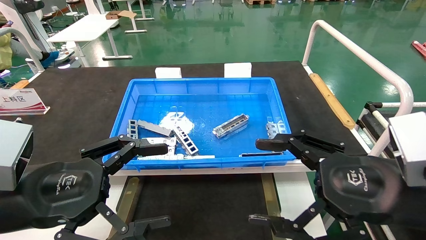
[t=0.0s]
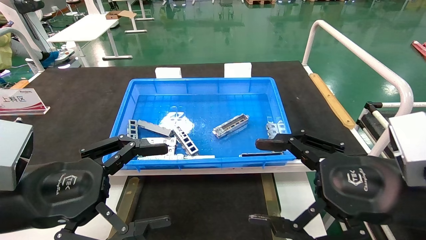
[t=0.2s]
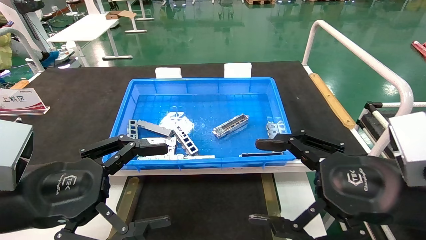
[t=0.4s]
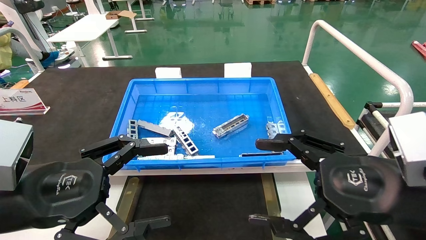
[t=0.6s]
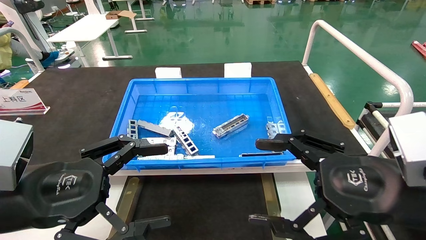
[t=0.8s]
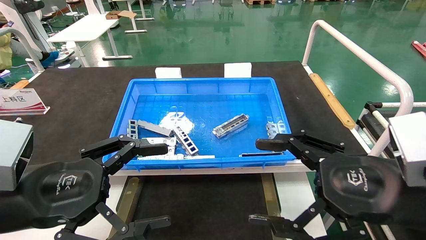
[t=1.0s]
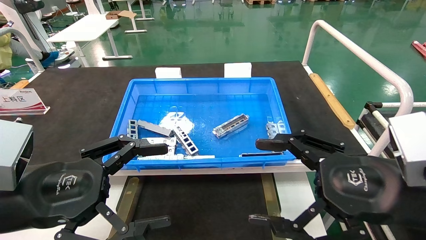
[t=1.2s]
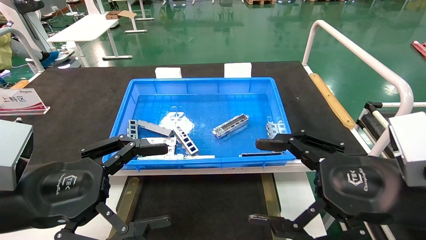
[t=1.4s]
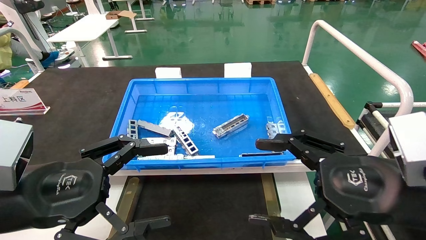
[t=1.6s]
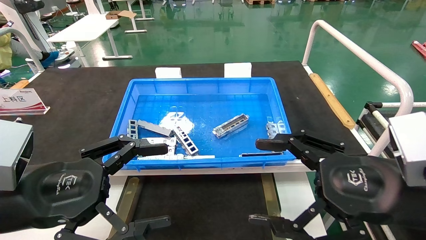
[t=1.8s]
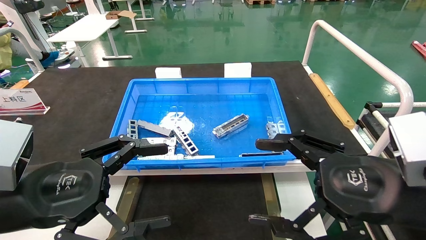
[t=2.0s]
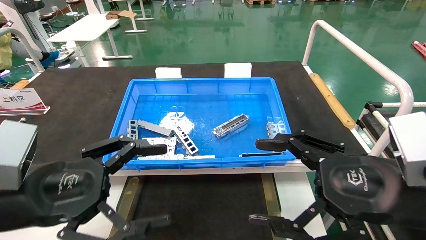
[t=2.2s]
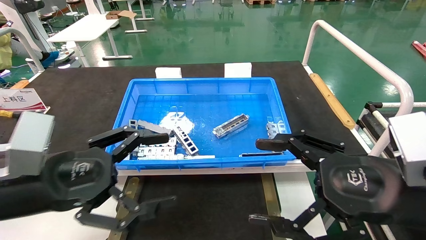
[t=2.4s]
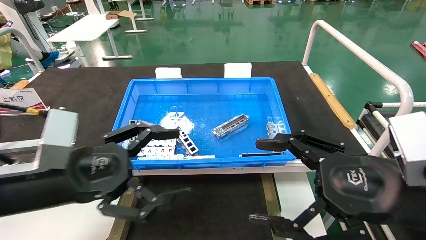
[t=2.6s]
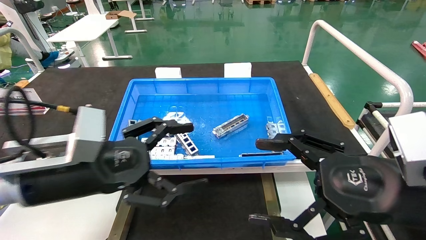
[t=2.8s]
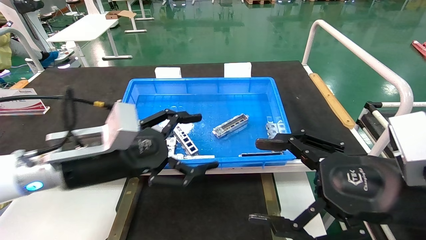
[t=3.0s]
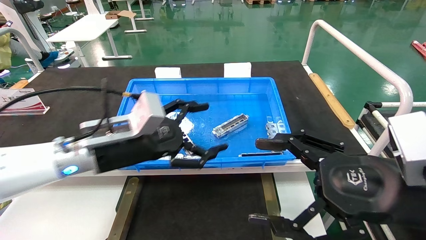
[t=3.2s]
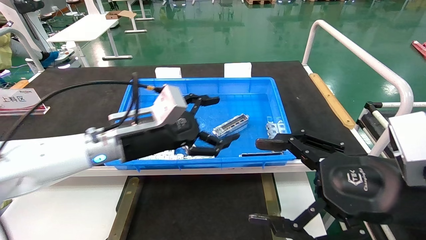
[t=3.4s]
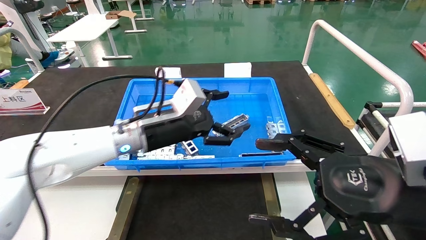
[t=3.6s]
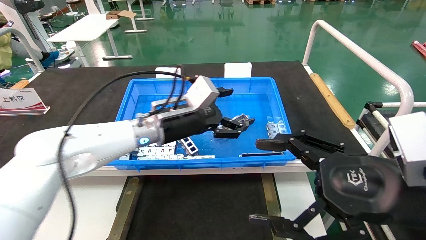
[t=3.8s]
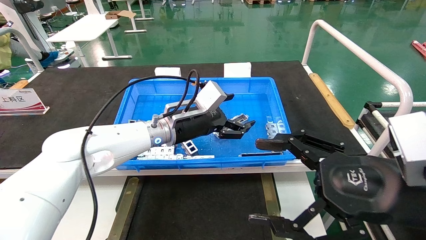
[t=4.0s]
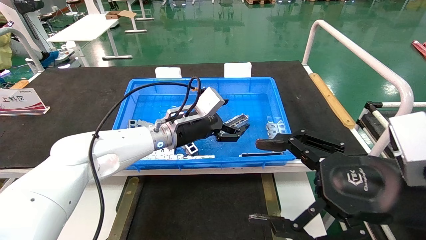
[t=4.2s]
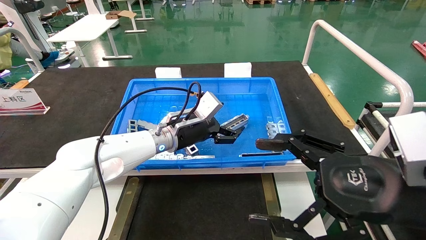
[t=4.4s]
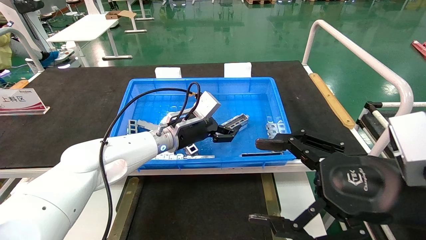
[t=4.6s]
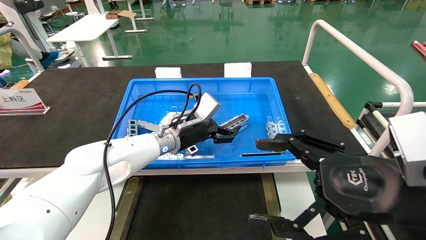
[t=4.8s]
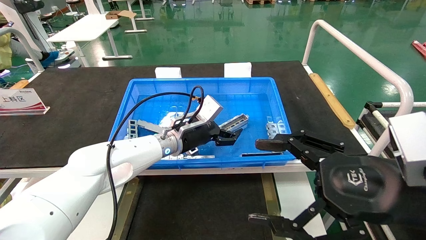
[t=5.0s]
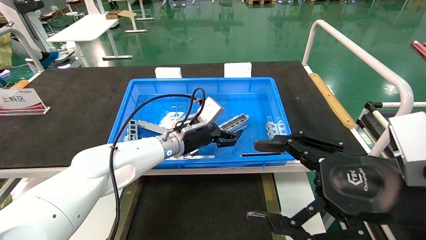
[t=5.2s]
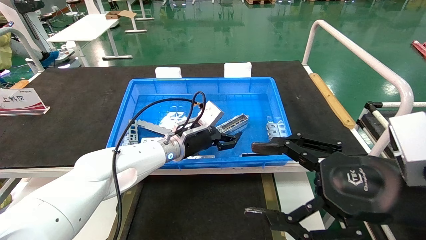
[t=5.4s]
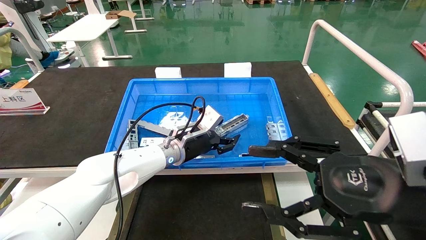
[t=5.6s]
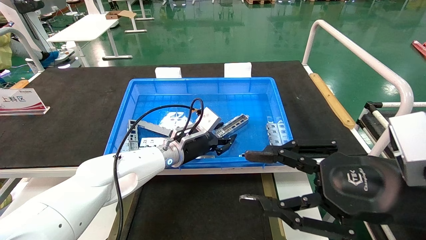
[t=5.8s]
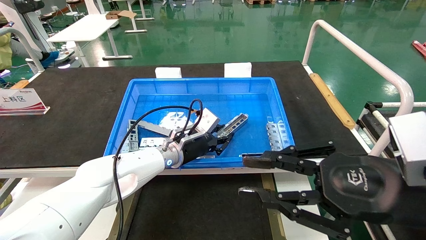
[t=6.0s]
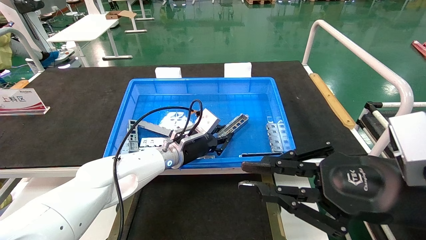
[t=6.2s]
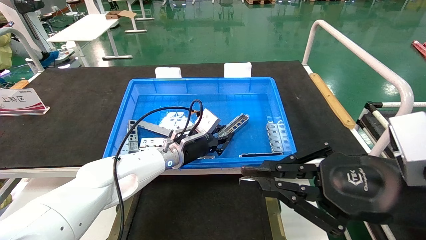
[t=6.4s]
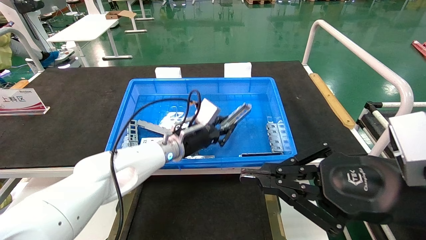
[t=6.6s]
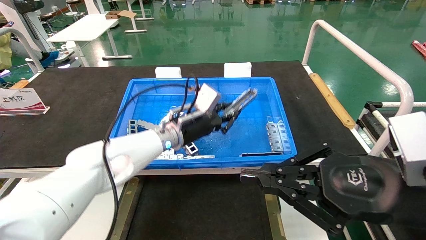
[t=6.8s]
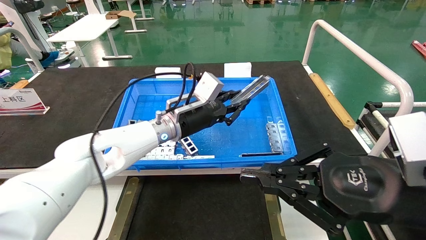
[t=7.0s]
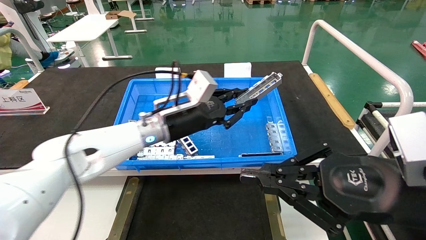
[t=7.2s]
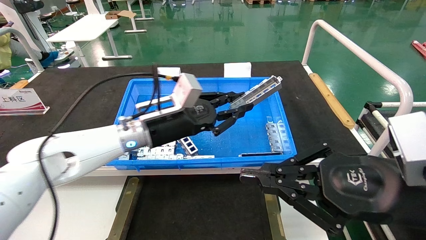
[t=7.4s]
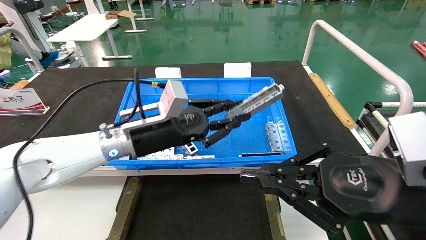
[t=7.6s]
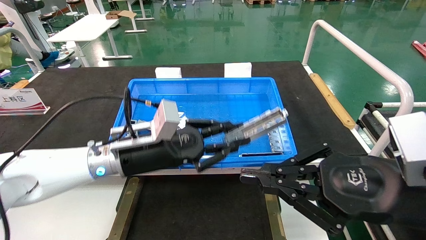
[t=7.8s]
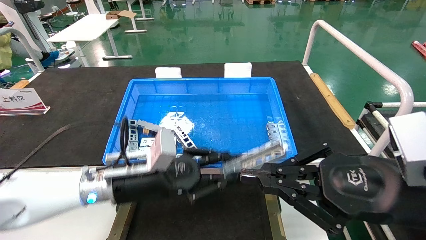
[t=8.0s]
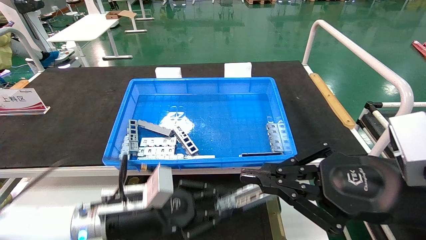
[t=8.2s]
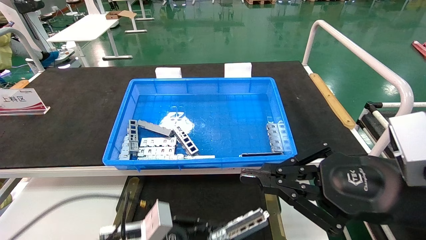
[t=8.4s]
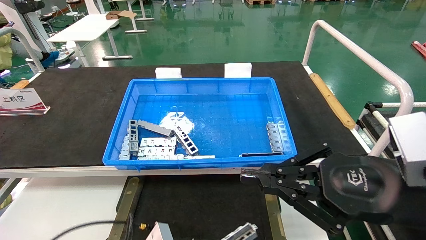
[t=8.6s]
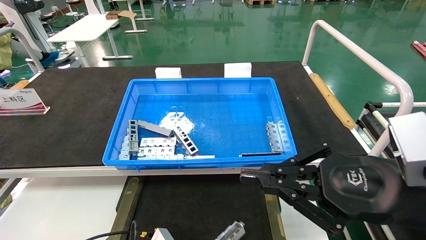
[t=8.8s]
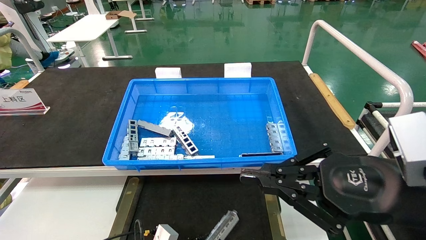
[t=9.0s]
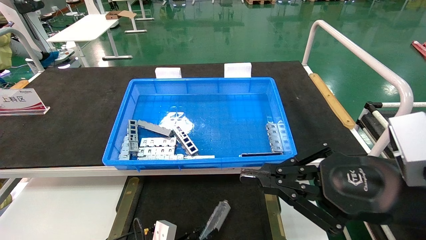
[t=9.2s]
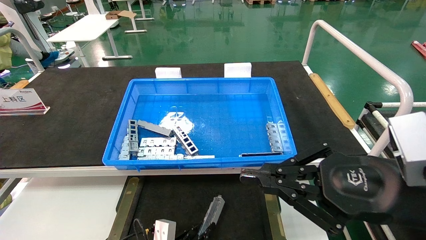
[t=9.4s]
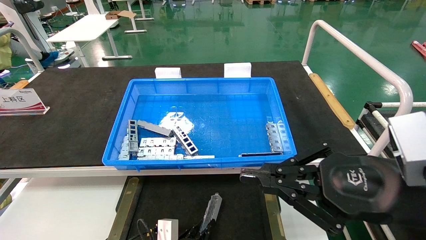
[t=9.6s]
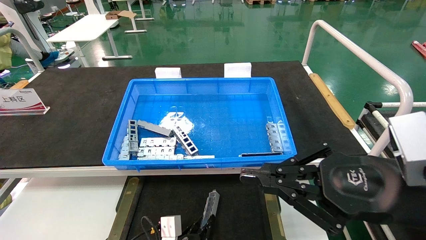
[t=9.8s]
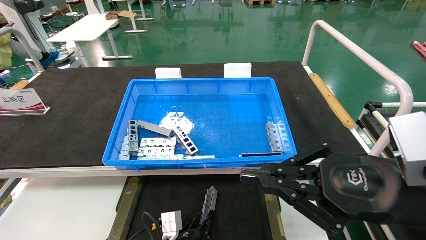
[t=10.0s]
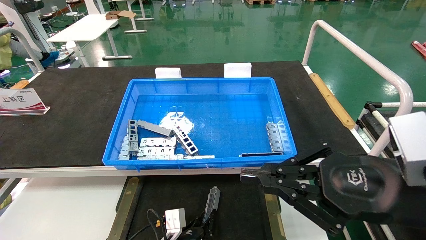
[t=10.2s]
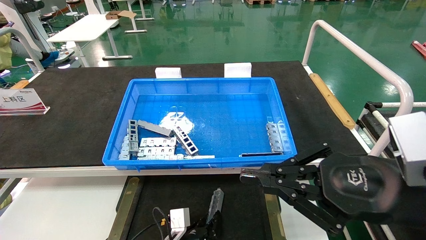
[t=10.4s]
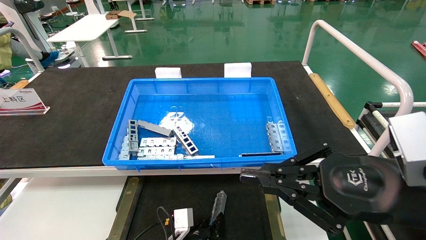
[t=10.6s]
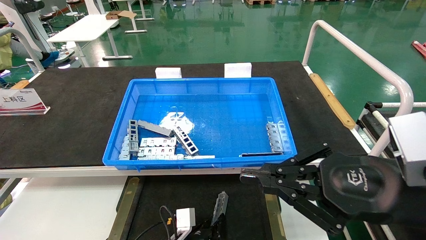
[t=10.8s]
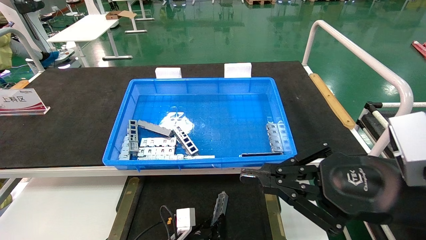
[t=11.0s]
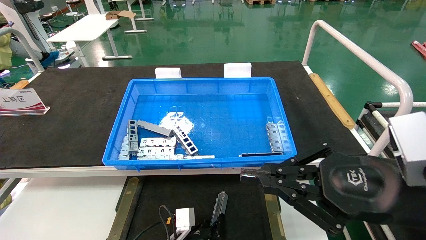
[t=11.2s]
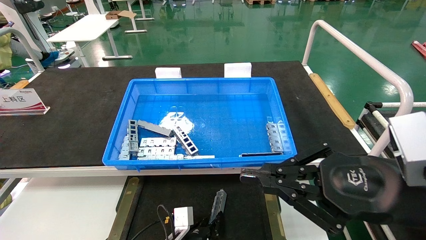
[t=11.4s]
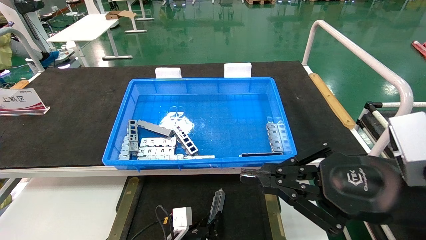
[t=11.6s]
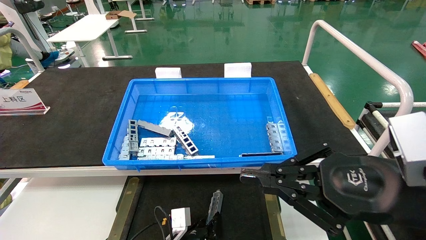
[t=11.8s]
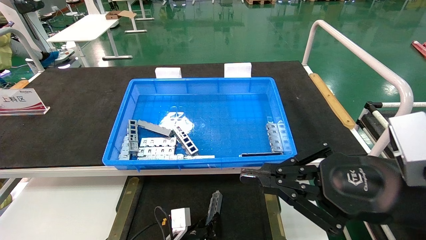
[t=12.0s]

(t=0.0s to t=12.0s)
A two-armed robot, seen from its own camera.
Task of the whole recording: Grasp the part with one hand and place it on the black container.
Step, t=2.4s - t=6.2s: Pick up the front USB bracket from the feeding area.
t=0.0s - t=1.6s: Both grippers stay about where they are.
t=1.6s - t=3.0s: The left gripper shifts some 10 cm forward and to the right.
t=3.0s - t=4.4s: The left gripper is displaced forward and to the right by about 20 cm.
t=4.4s - t=6.0s: The right gripper closes. Meanwhile the left gripper is displaced downward by about 5 cm, and closes its fingers.
t=6.0s - t=7.6s: The left gripper heads backward, upward and to the left, covering roughly 15 cm. Meanwhile the right gripper closes its fingers.
t=7.6s - t=9.0s: The left gripper shifts approximately 30 cm downward.
t=9.0s - t=10.4s: The left gripper travels to the right and forward by approximately 10 cm.
t=10.4s - t=12.0s: The two grippers keep their place.

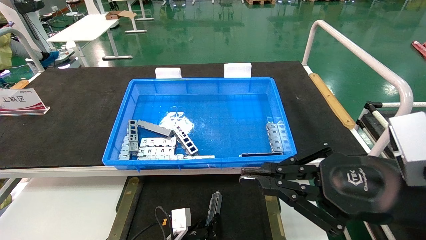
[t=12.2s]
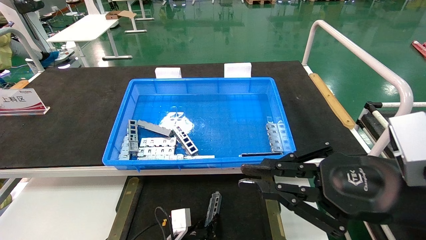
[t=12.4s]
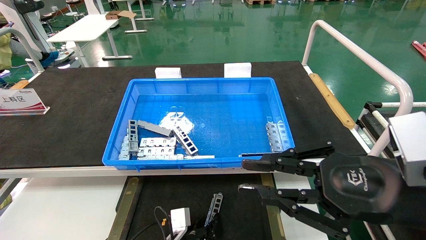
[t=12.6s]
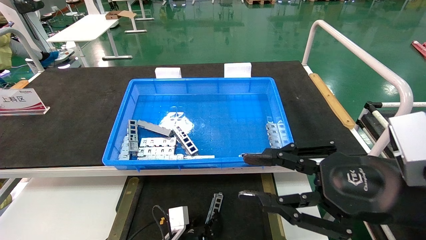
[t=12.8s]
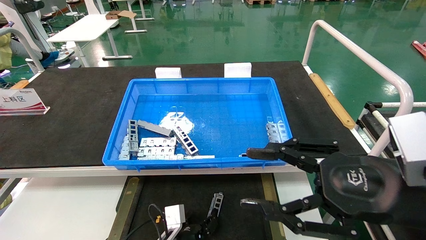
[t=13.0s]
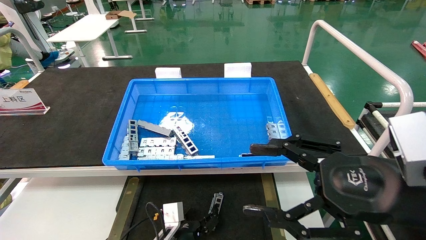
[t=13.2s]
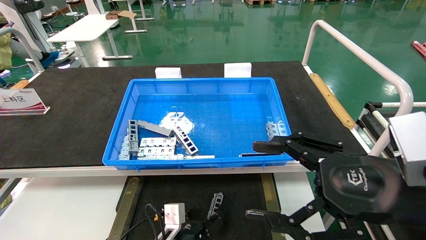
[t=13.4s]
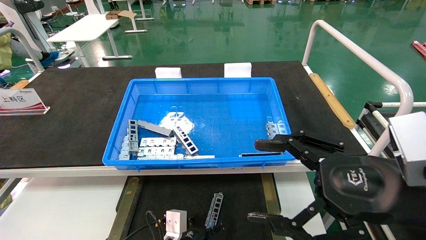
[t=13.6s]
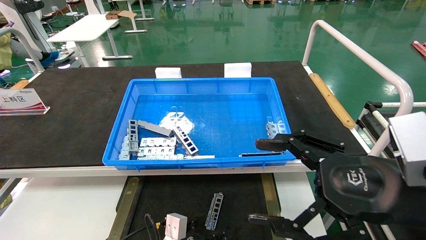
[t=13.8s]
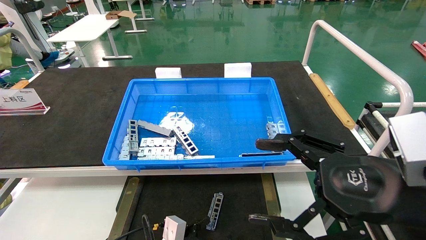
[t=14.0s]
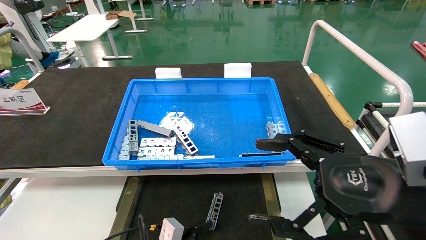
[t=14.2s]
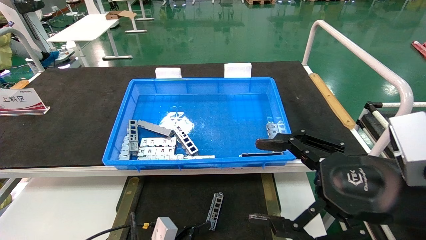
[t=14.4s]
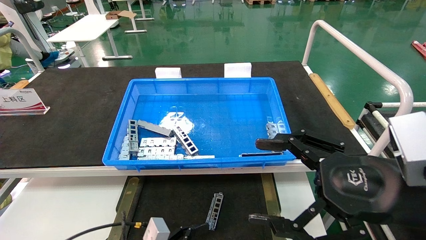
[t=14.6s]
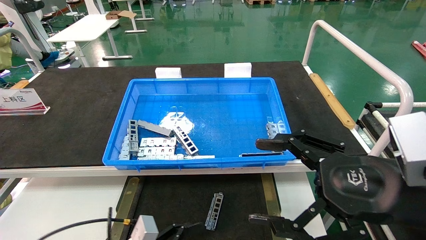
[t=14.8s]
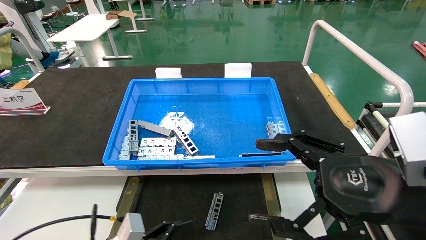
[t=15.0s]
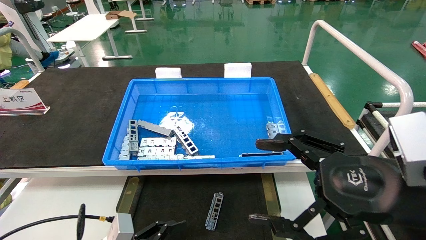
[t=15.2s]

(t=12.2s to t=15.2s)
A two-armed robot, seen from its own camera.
Task of the whole recording: Grasp the part with one hand and place it on the black container.
t=12.2s - t=13.8s: The left gripper moves roughly 5 cm, and opens up. Meanwhile the right gripper opens its fingers.
t=13.8s - t=15.2s: The left gripper travels to the left, upward and backward by roughly 15 cm.
